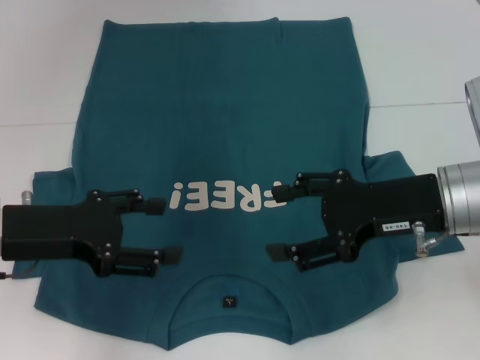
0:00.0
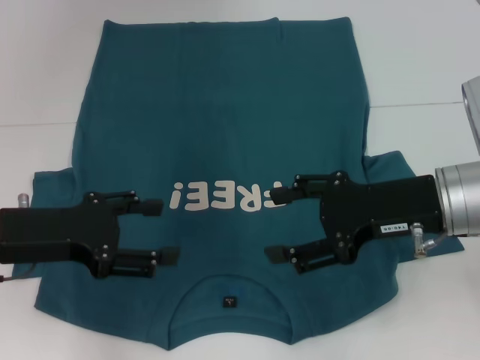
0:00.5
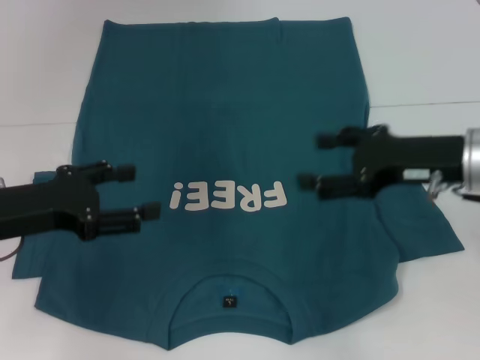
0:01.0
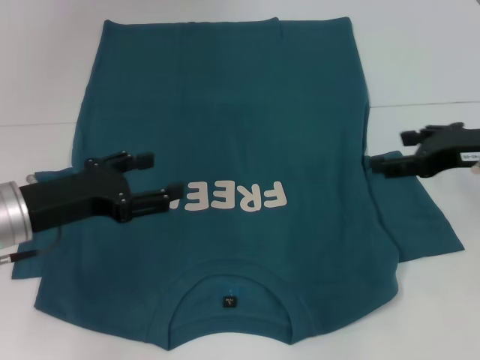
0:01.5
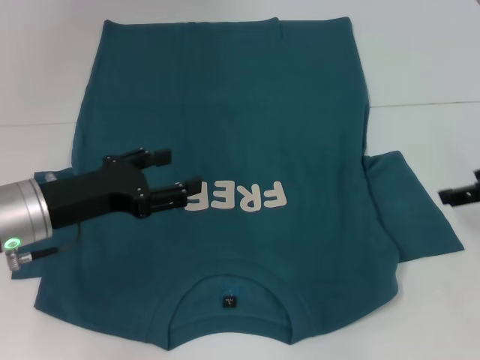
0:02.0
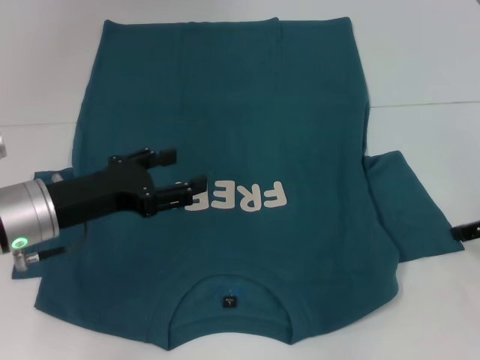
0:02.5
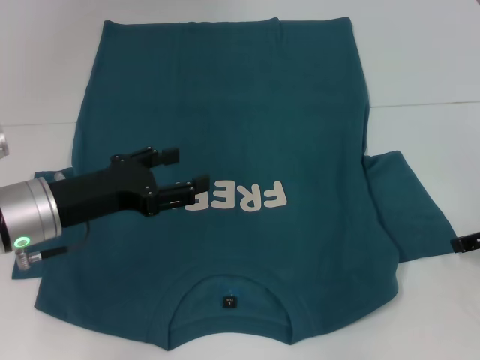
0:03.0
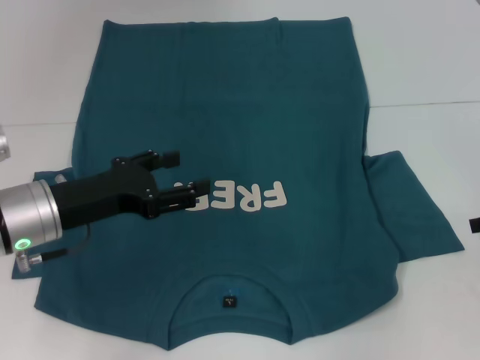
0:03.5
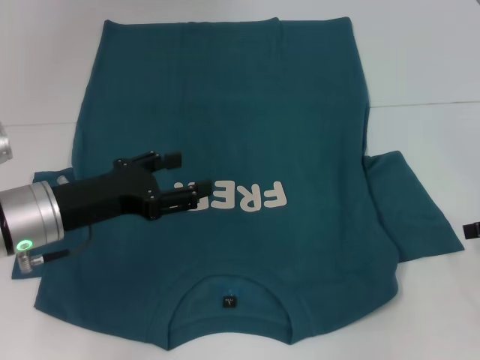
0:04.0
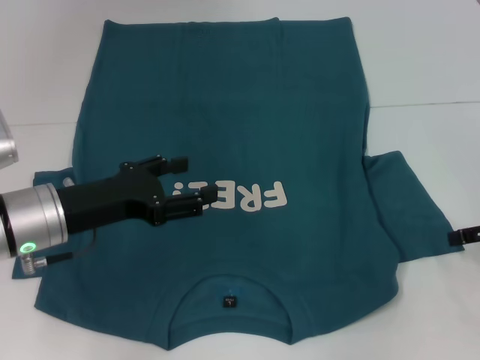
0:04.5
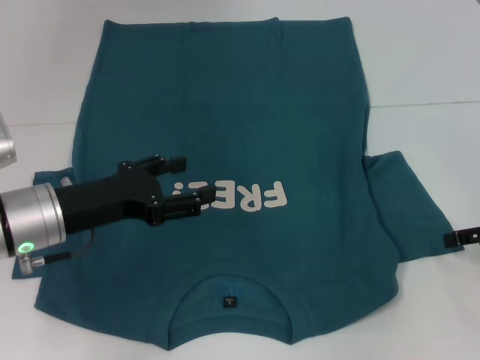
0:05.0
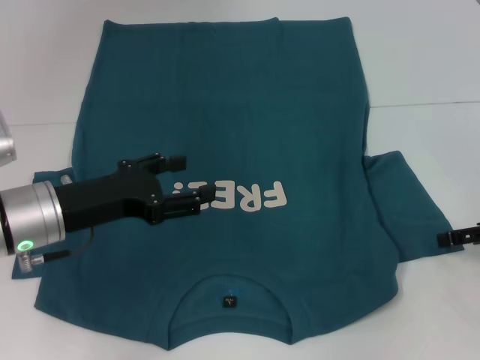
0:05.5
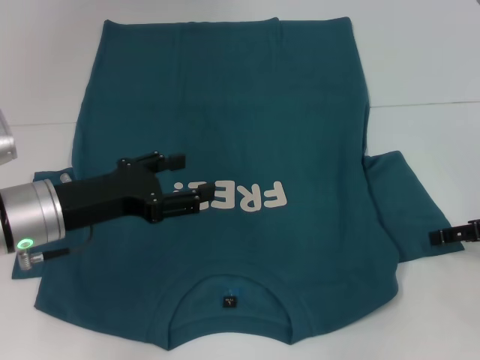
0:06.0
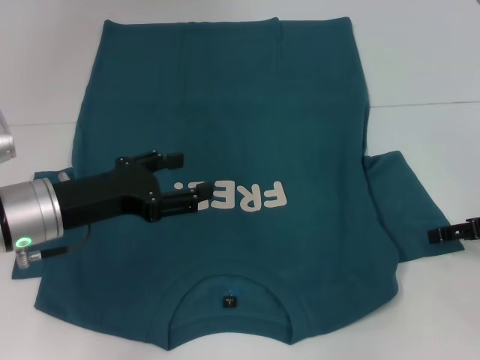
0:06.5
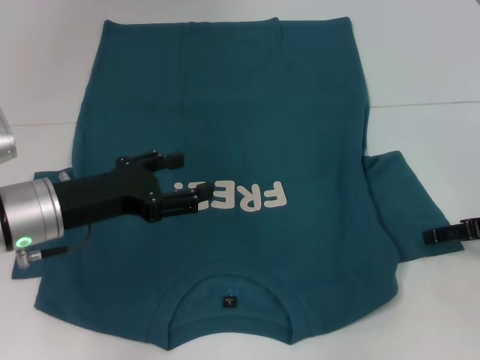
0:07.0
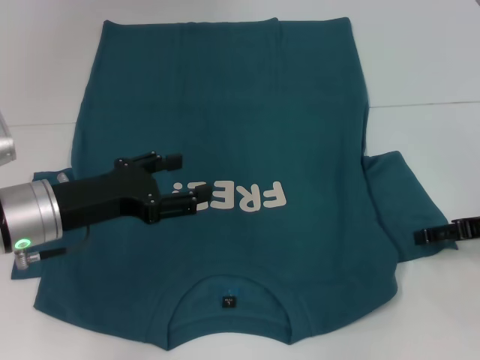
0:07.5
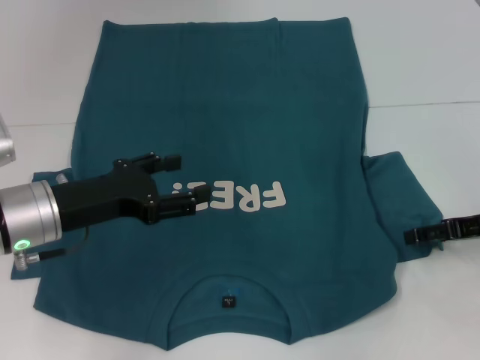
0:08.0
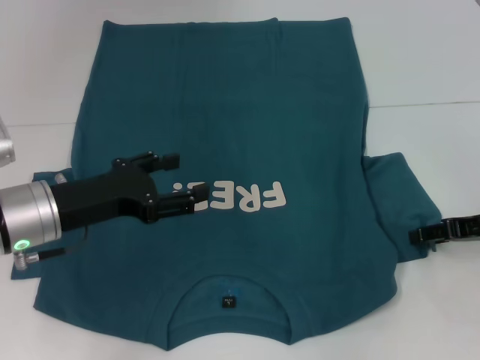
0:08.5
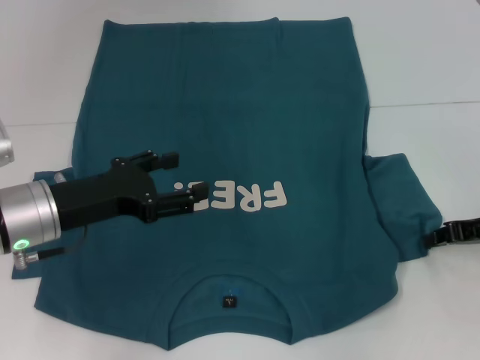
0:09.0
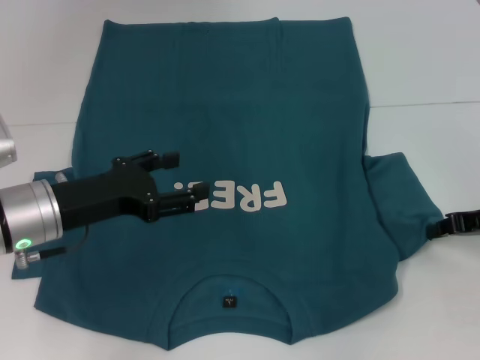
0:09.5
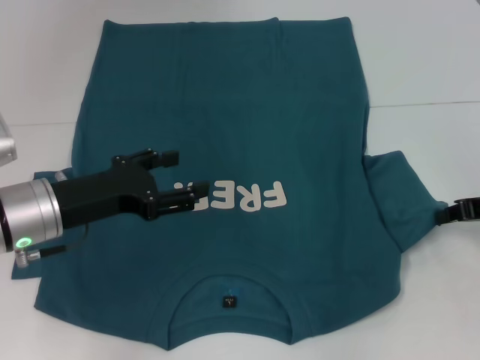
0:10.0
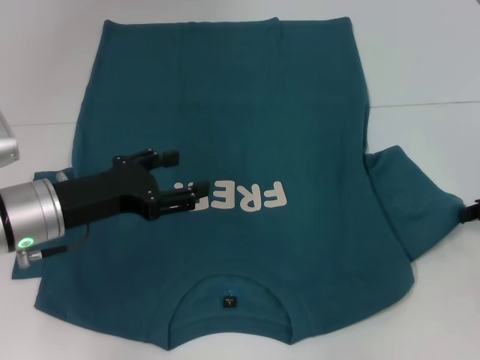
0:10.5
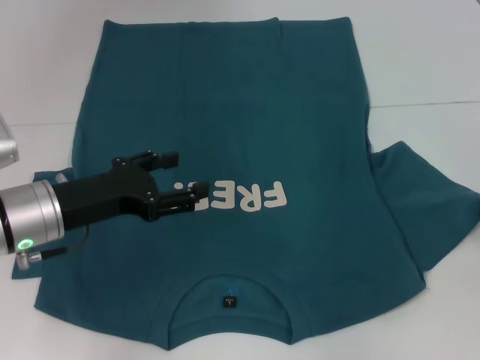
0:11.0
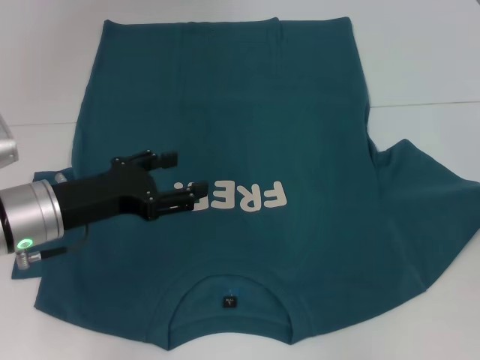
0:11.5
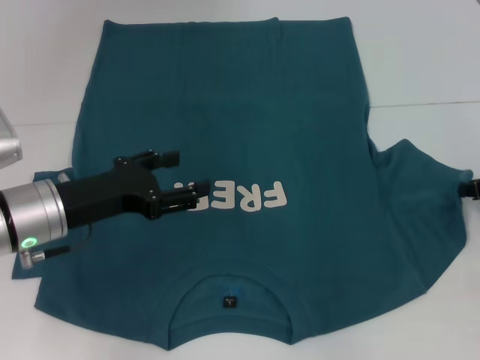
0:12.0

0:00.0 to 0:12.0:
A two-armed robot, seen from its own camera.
0:00.0 to 0:02.0: The right gripper travels to the right by about 15 cm.
0:02.0 to 0:04.0: The right gripper travels to the right by about 5 cm.
0:04.0 to 0:06.0: The grippers move only a little.
0:06.0 to 0:08.0: The grippers stay close to where they were, moving slightly.
0:08.0 to 0:10.0: The right gripper closes.
0:10.0 to 0:12.0: The grippers stay close to where they were, moving slightly.

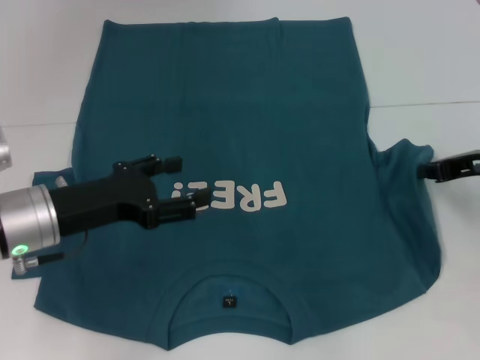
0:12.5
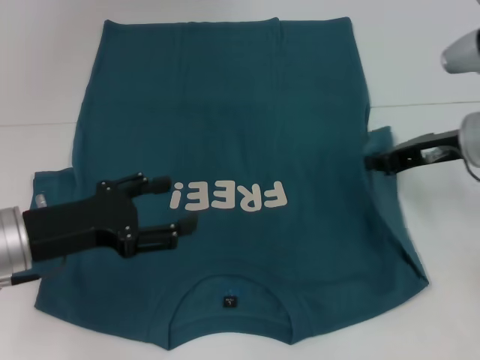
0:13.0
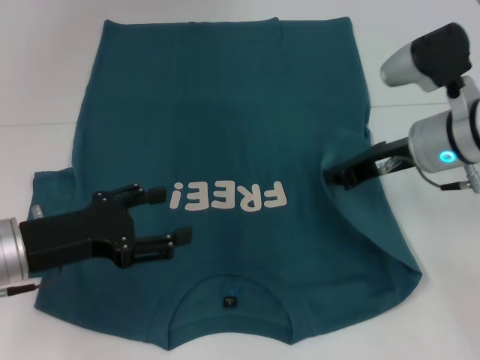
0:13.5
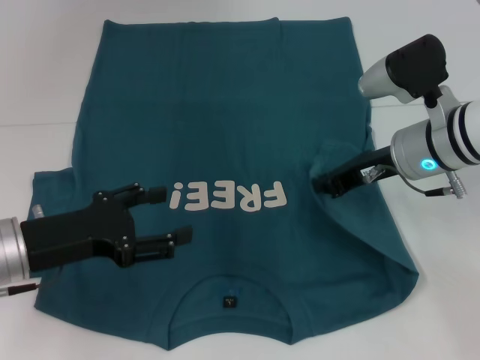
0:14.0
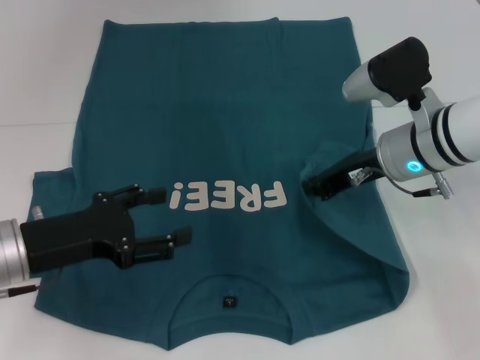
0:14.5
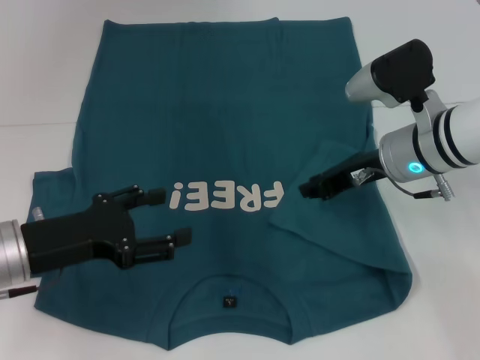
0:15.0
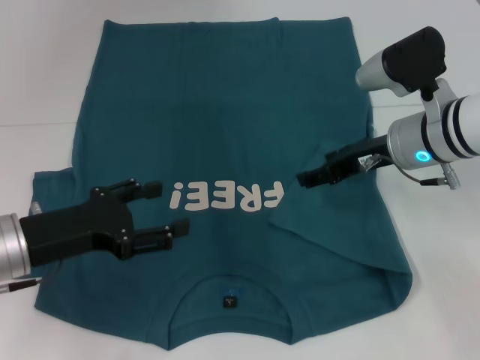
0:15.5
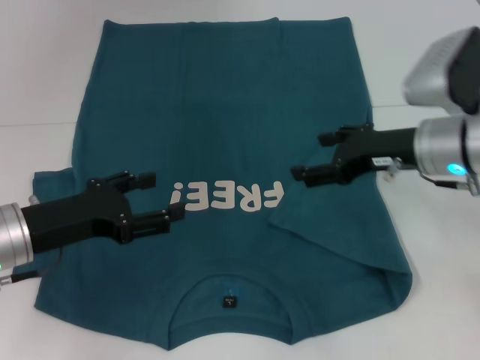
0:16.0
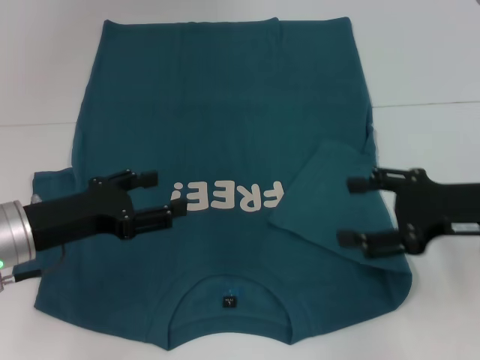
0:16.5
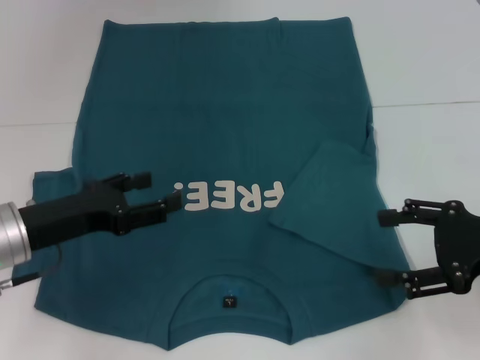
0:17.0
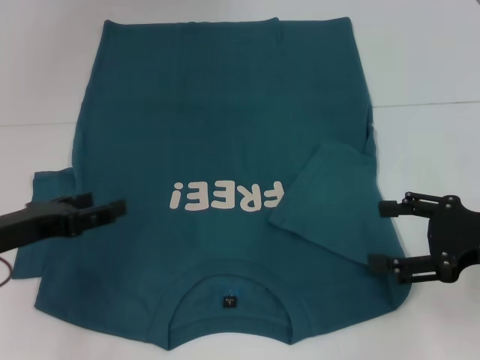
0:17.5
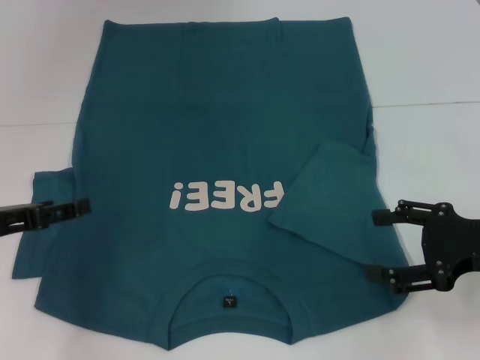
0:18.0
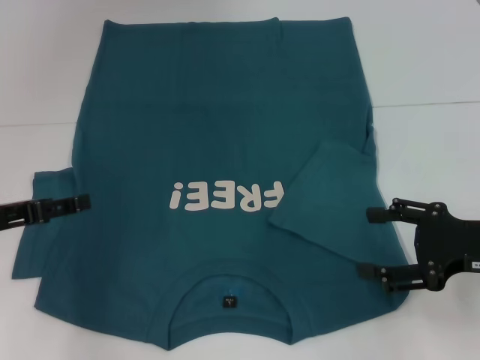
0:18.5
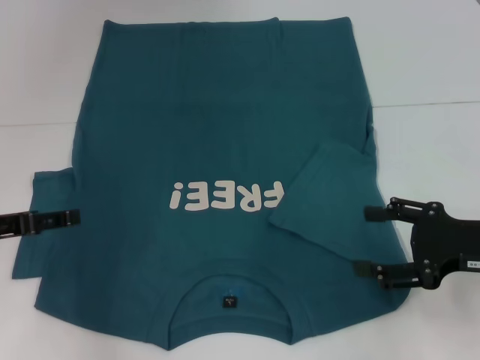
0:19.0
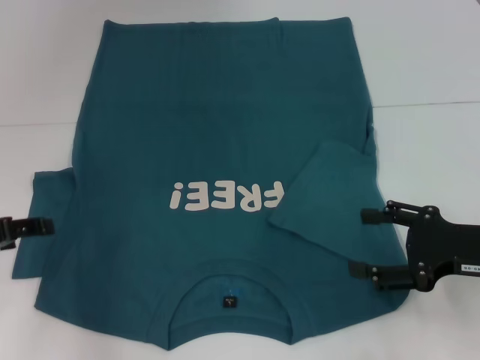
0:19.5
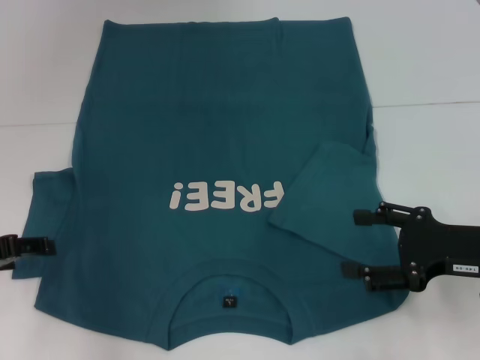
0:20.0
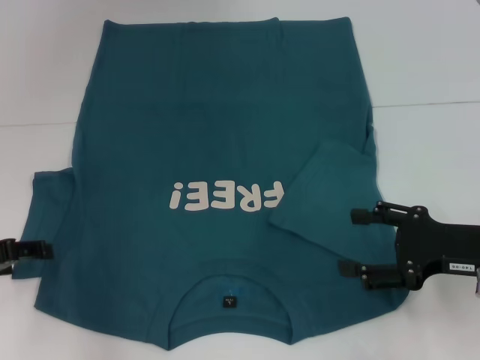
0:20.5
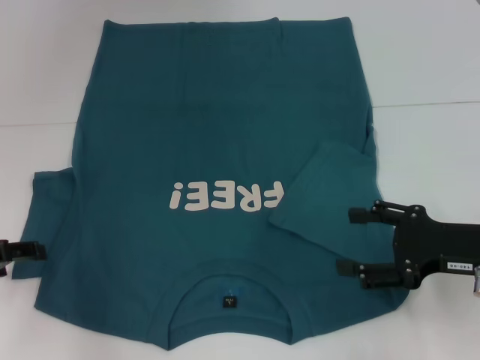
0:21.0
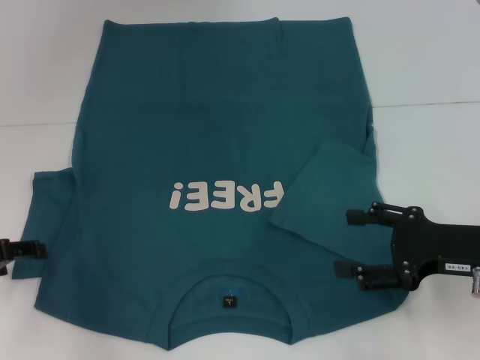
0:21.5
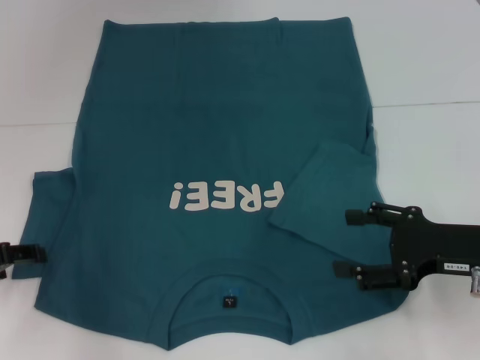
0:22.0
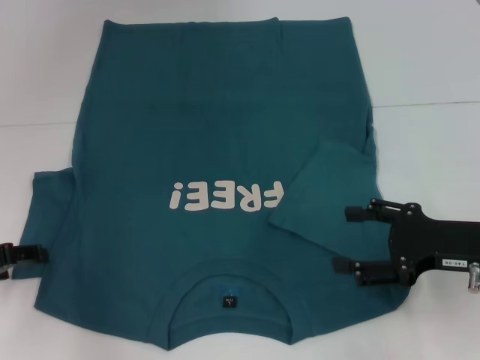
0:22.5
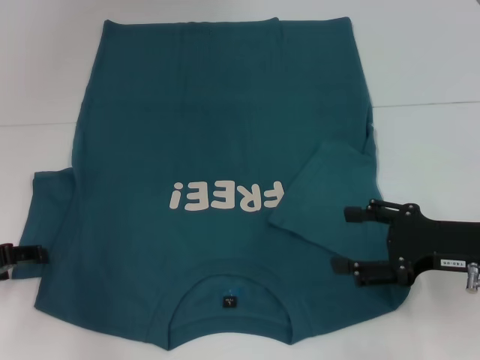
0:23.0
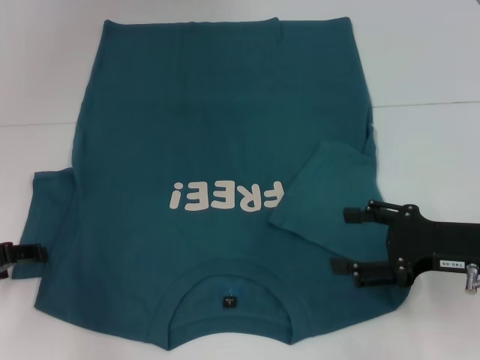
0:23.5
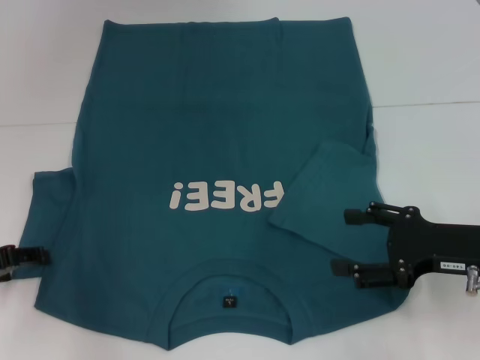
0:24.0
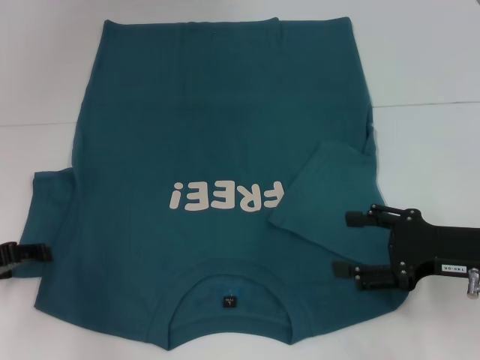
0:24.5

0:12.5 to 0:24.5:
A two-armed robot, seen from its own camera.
Step, 0:12.5 to 0:15.0: Fold the bottom right sleeve to the right.
0:12.5 to 0:14.5: The right gripper is displaced to the left by roughly 10 cm.
0:14.5 to 0:16.5: The right gripper travels backward and to the right by some 15 cm, and opens up.
0:16.5 to 0:18.5: The left gripper is displaced to the left by about 5 cm.
0:20.5 to 0:22.5: Neither gripper changes place.
0:22.5 to 0:24.5: Both grippers stay put.

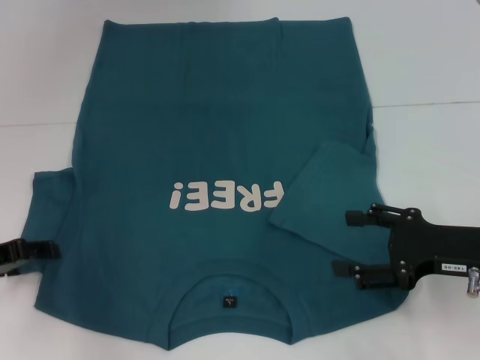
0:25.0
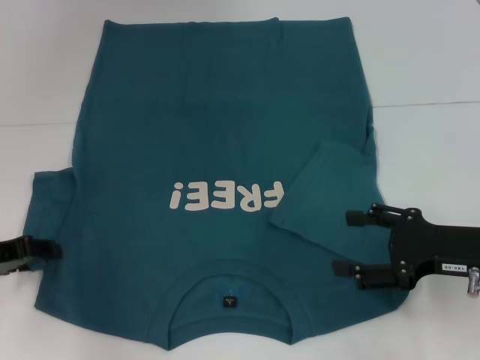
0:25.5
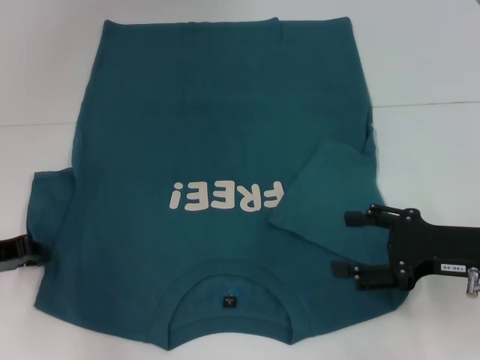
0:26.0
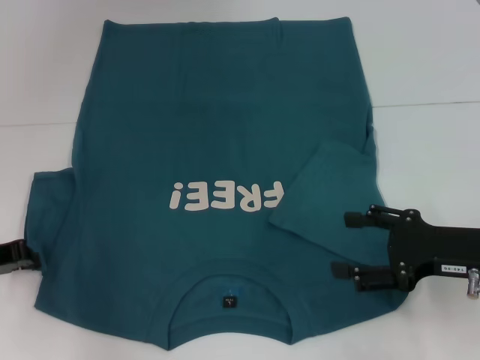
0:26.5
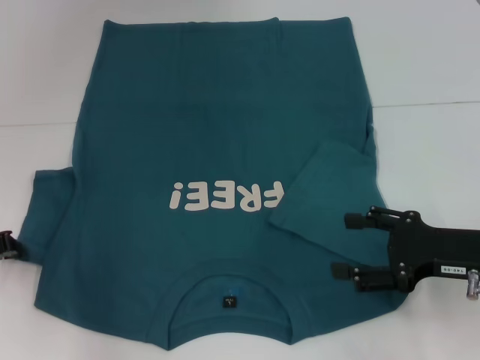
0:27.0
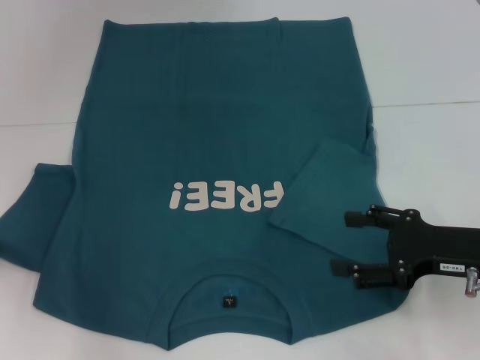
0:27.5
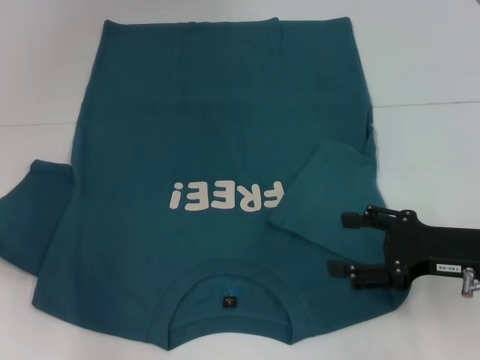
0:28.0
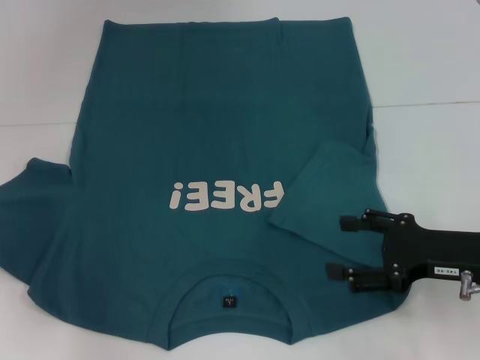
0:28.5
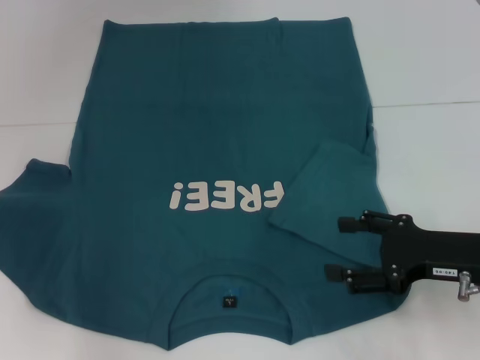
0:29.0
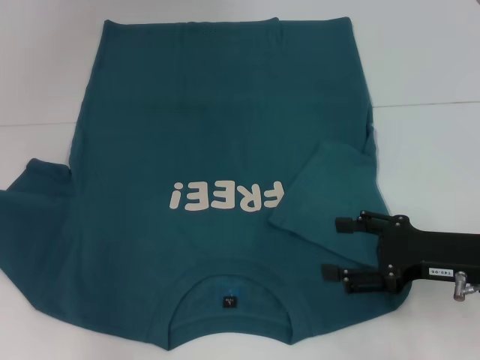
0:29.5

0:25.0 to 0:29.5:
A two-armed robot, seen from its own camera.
0:25.0 to 0:27.0: The left gripper closes up.
0:27.0 to 0:29.5: The grippers stay close to where they were, moving slightly.
